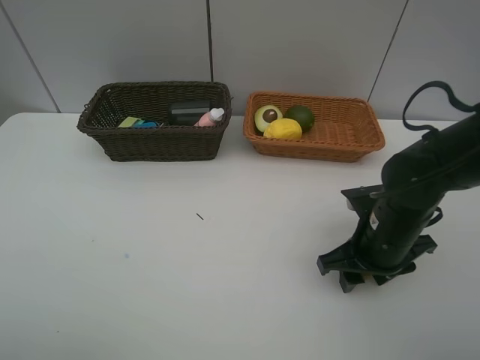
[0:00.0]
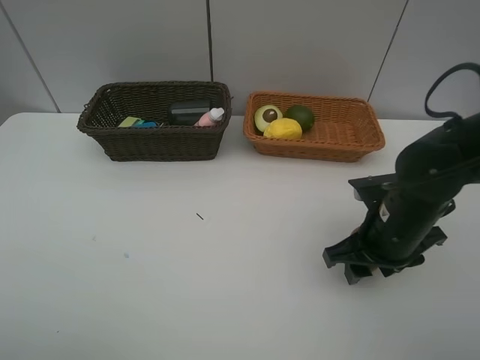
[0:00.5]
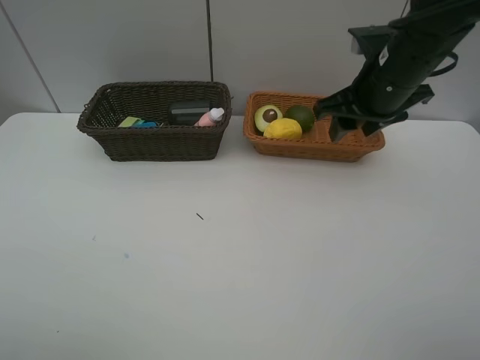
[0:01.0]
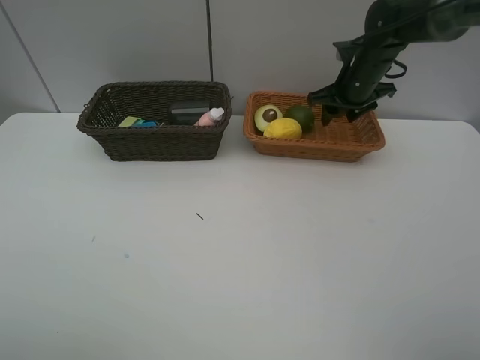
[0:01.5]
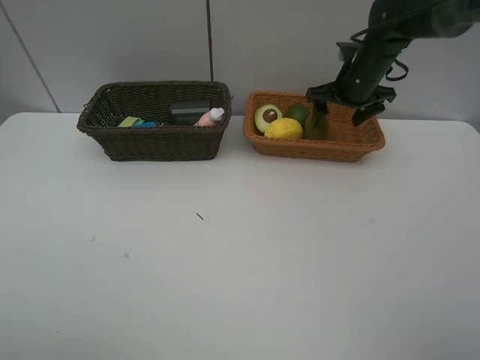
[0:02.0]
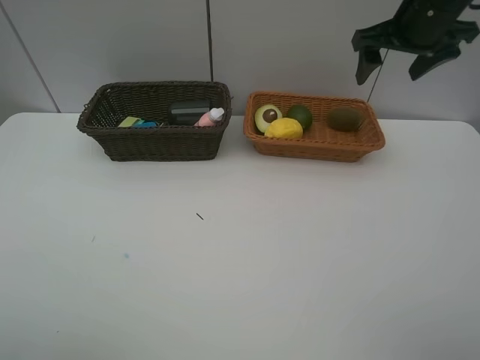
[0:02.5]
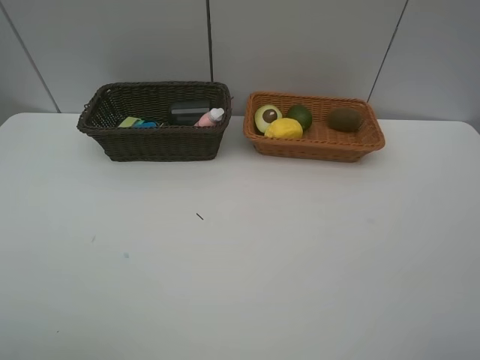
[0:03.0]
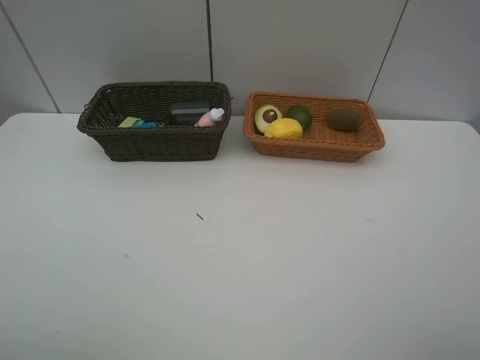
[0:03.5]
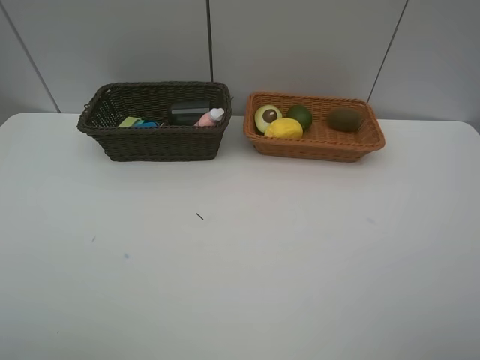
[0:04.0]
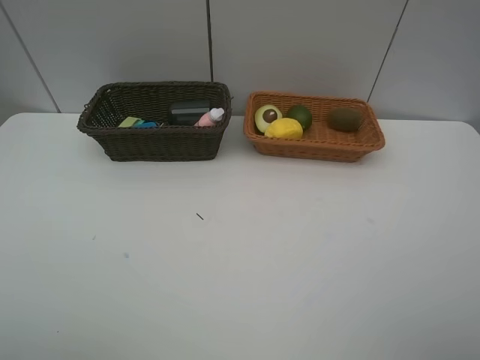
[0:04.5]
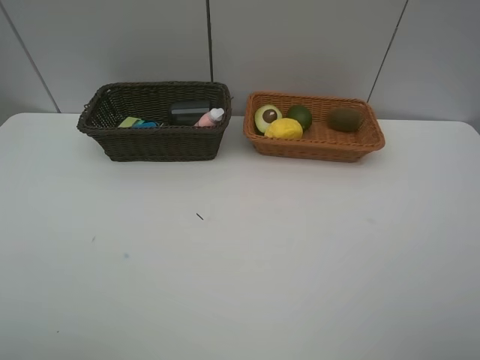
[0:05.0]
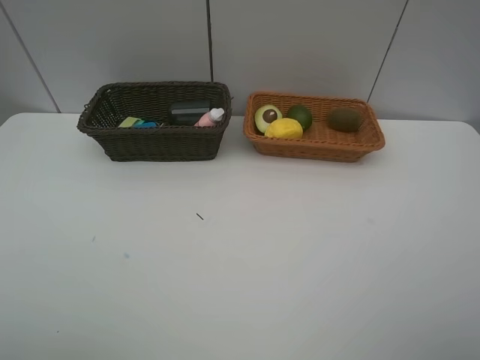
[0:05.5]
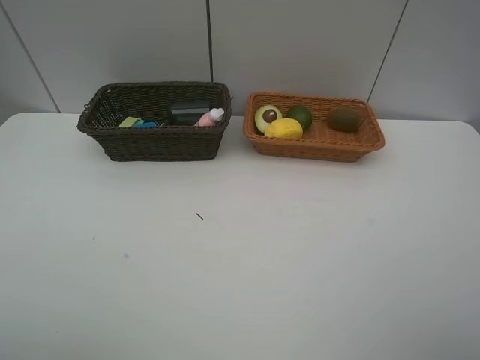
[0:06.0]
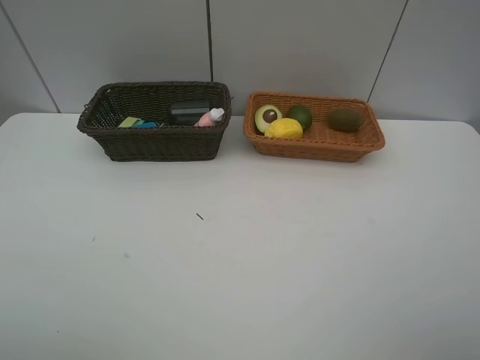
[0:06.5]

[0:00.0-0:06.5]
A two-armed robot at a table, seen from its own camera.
Task of the whole recording: Place multiple objects separately in different baskets.
Step, 0:01.0 to 0:01.5: Place the kiwi in the light basket with right gripper.
0:00.0 to 0:02.0: The right gripper travels forward by some 25 cm, and opens up.
0:02.0 to 0:04.5: The right gripper heads backward, covering some 50 cm.
